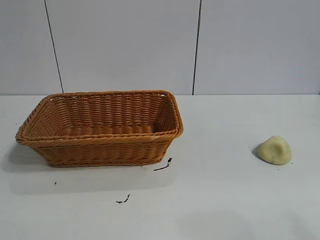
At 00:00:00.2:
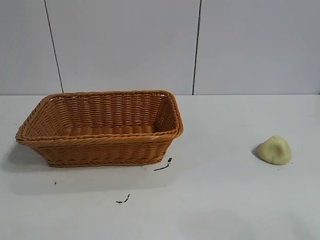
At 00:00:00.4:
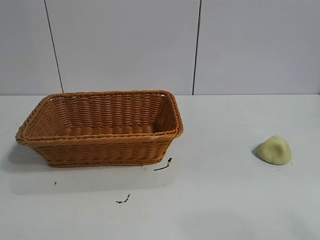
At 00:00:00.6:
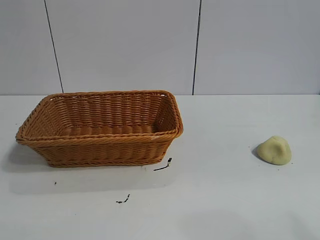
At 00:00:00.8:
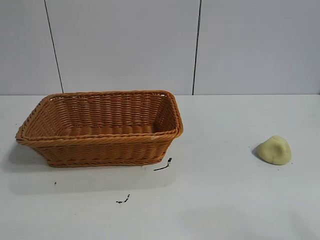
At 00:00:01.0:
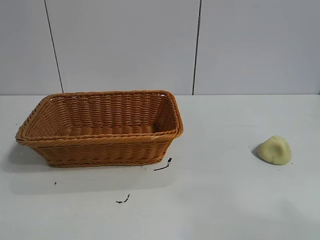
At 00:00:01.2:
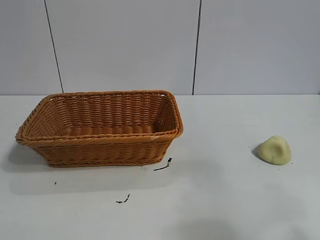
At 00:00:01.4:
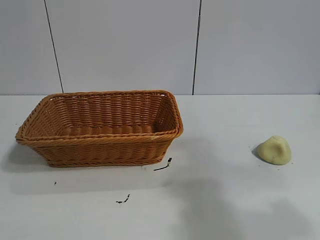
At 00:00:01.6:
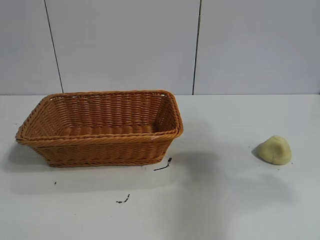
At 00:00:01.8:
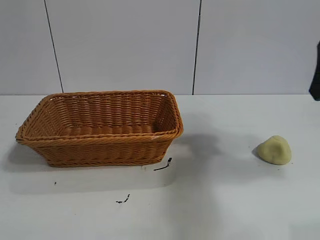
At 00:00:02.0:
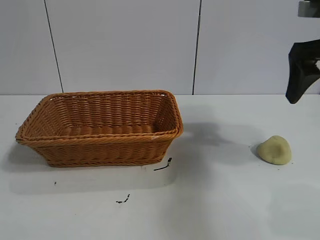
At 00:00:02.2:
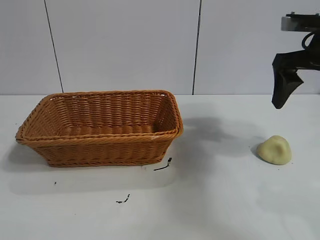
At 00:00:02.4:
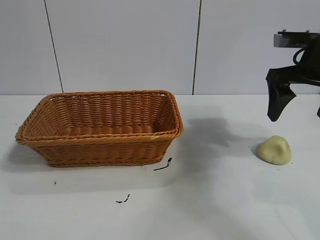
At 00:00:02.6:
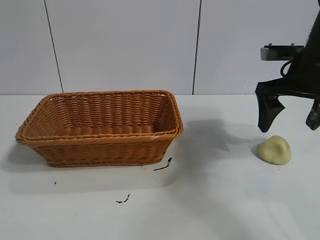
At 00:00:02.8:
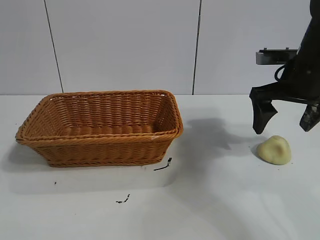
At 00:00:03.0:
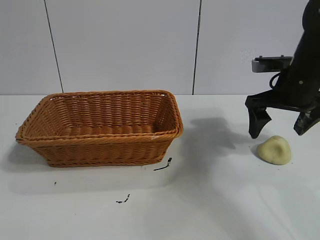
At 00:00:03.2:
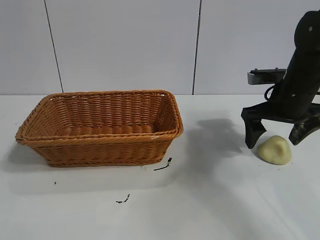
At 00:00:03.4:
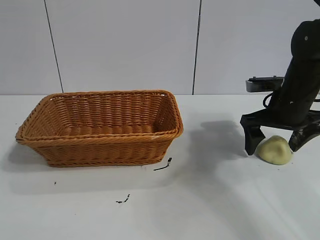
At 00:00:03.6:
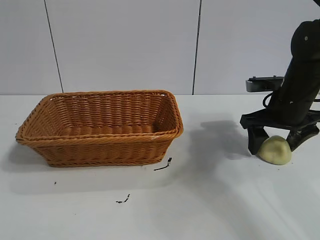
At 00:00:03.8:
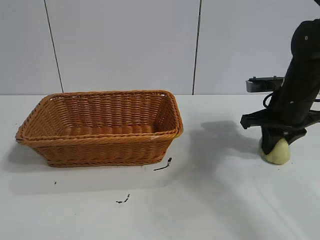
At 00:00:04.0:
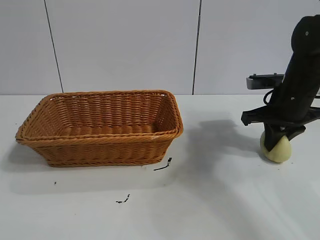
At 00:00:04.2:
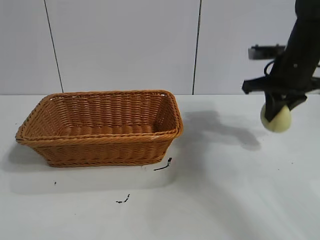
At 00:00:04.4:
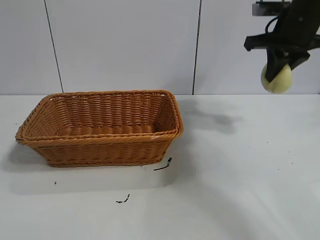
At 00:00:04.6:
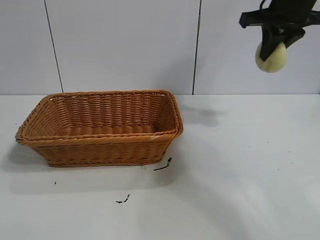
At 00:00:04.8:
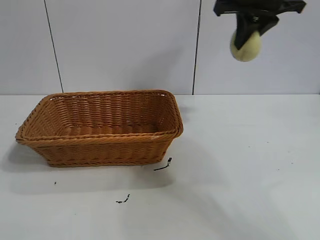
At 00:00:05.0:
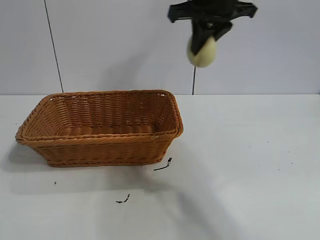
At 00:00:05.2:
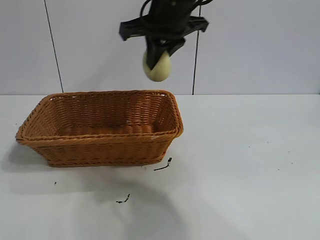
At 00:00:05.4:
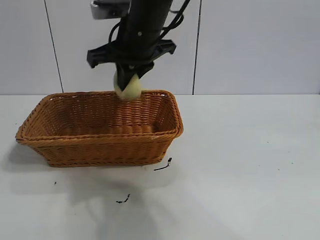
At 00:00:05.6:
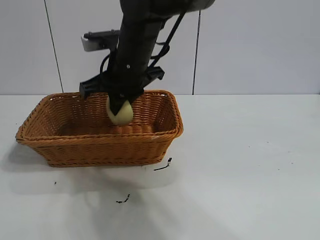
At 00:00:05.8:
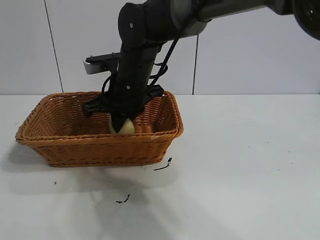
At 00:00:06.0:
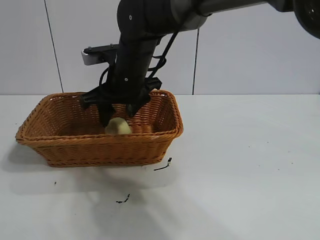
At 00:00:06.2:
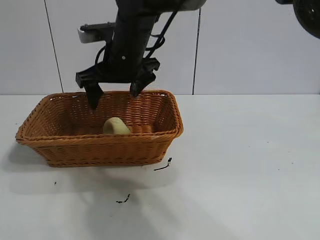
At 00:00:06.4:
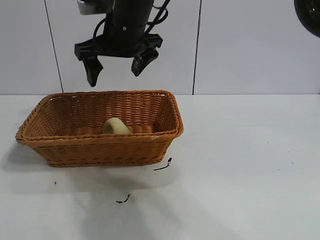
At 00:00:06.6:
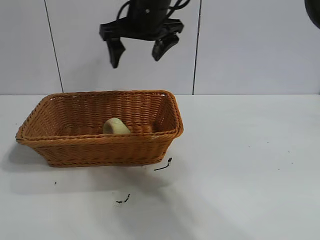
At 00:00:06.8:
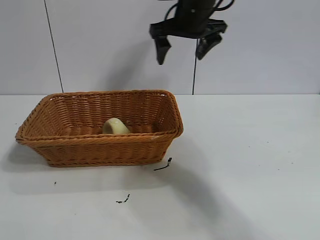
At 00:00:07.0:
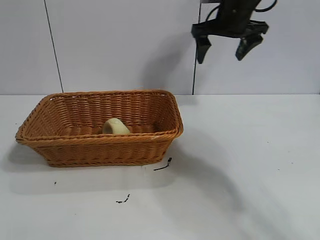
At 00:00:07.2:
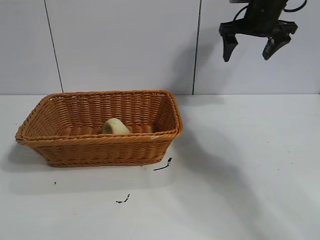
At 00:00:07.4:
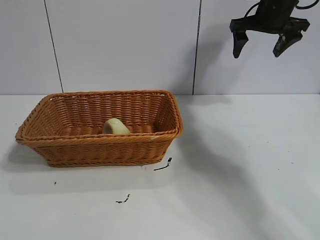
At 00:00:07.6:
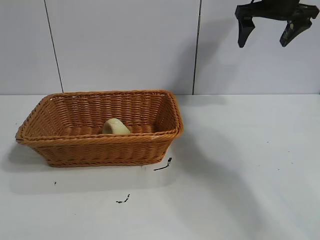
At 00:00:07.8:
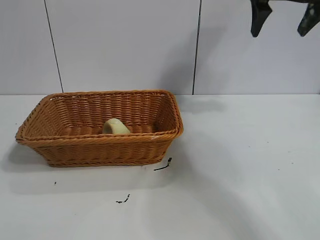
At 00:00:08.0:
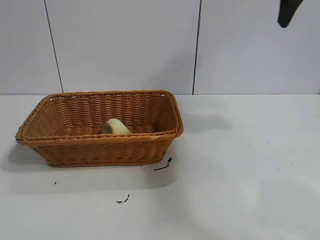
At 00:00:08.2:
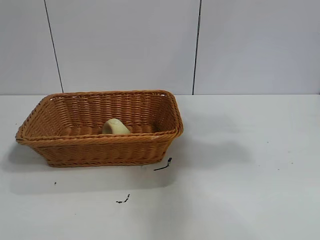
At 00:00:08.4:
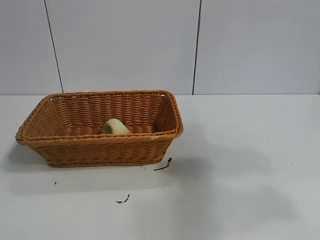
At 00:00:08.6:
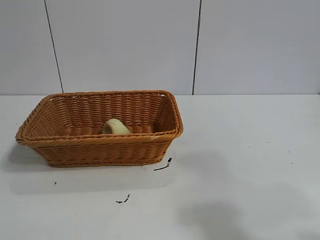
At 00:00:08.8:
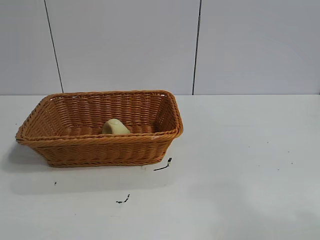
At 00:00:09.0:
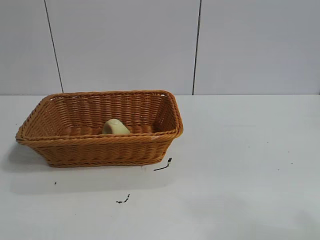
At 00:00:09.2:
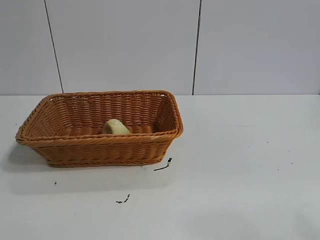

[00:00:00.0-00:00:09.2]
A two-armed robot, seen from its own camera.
Task of the whole recording: pick up the egg yolk pastry and put it into the basket.
Step, 00:00:00.8 to 00:00:03.8: Grasp egg yolk pastry with right gripper.
Step, 00:00:04.0 to 00:00:06.0: Place the egg yolk pastry in the basket with right gripper.
